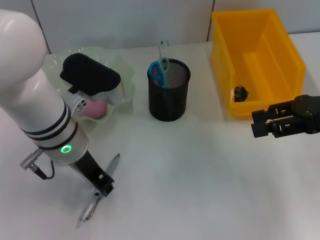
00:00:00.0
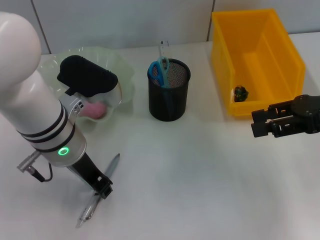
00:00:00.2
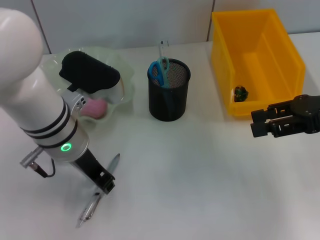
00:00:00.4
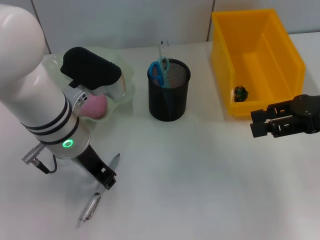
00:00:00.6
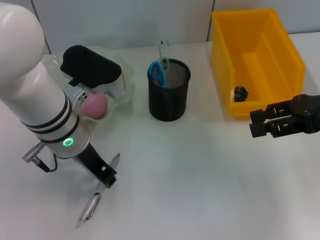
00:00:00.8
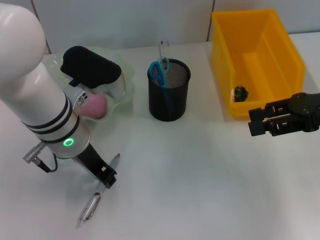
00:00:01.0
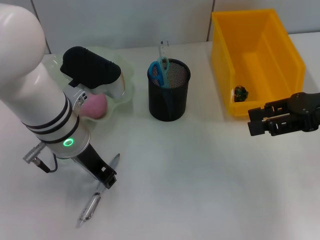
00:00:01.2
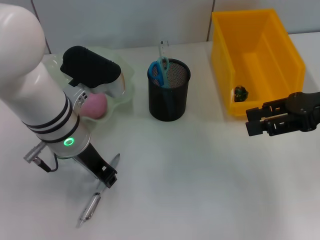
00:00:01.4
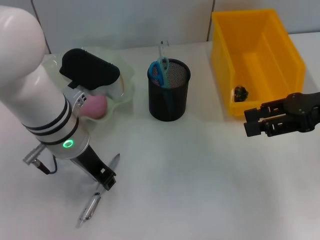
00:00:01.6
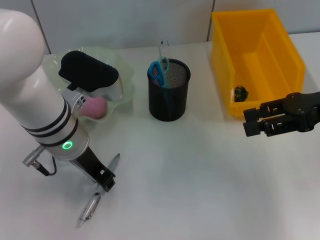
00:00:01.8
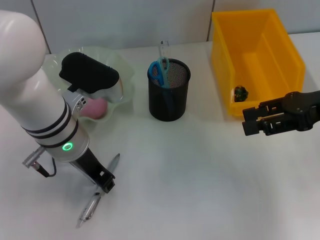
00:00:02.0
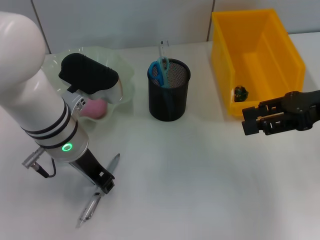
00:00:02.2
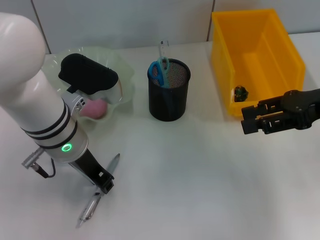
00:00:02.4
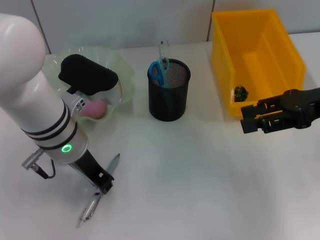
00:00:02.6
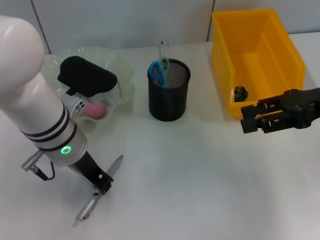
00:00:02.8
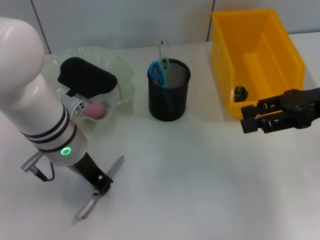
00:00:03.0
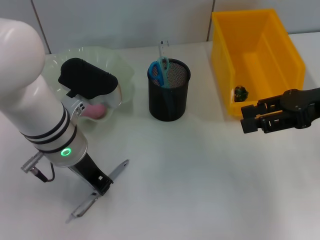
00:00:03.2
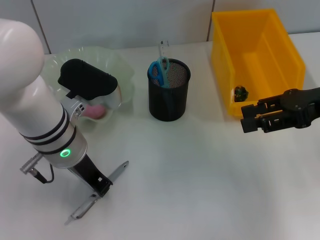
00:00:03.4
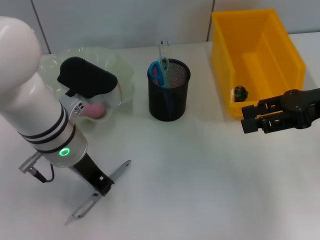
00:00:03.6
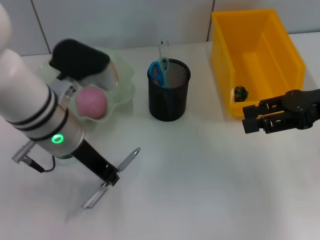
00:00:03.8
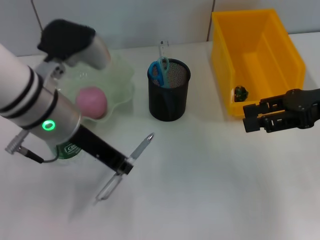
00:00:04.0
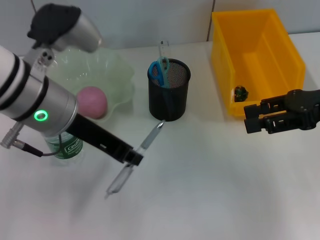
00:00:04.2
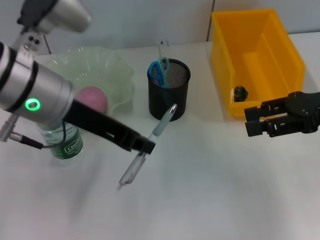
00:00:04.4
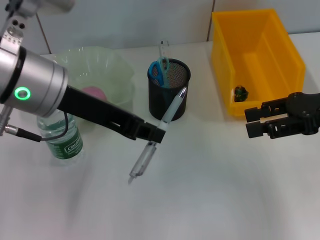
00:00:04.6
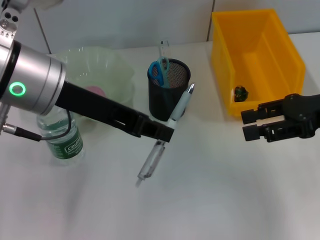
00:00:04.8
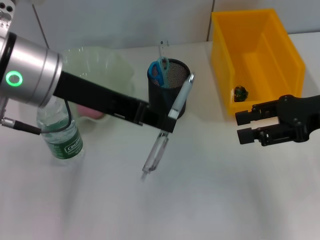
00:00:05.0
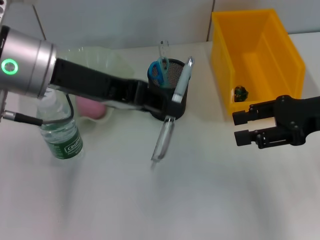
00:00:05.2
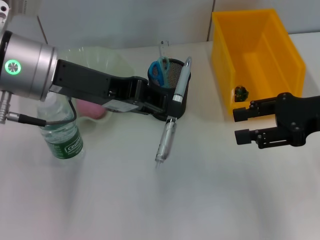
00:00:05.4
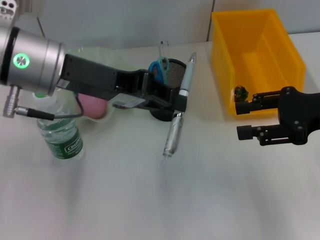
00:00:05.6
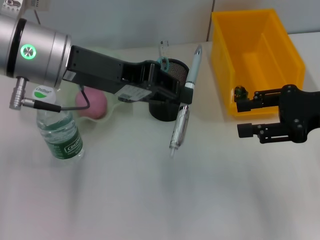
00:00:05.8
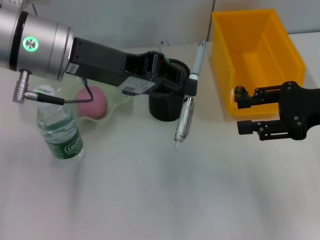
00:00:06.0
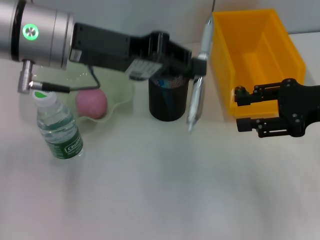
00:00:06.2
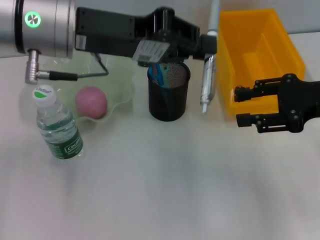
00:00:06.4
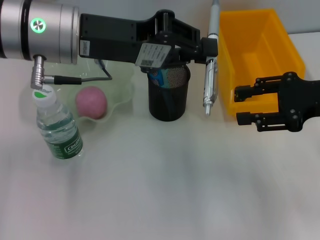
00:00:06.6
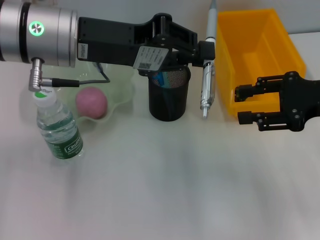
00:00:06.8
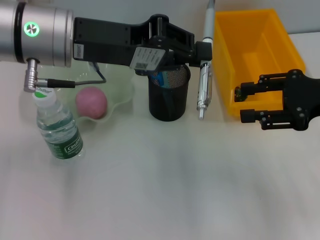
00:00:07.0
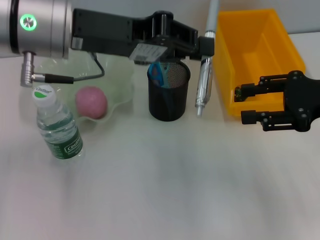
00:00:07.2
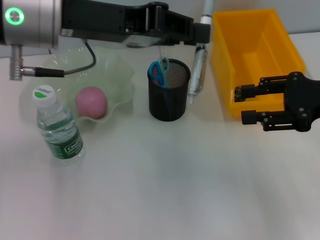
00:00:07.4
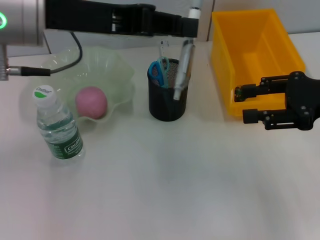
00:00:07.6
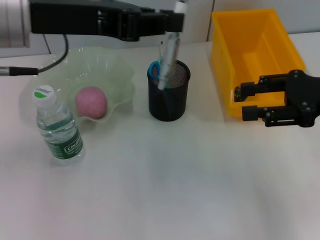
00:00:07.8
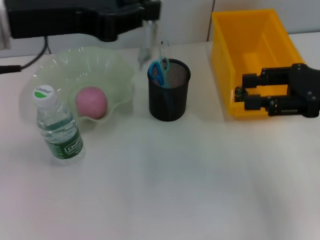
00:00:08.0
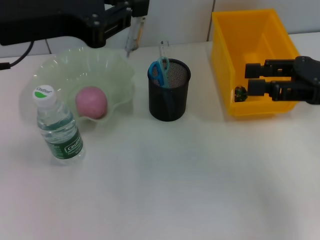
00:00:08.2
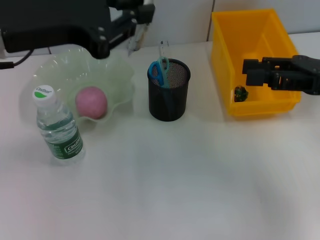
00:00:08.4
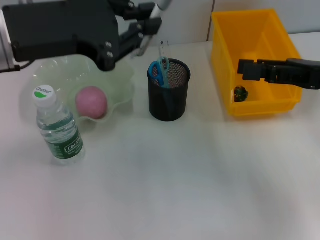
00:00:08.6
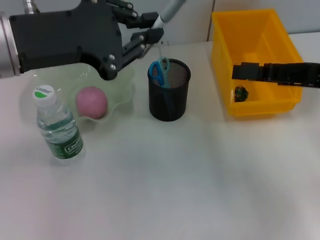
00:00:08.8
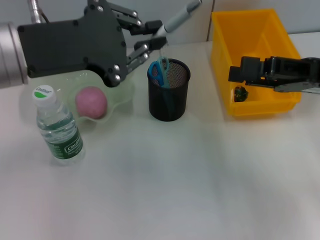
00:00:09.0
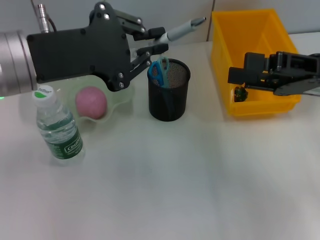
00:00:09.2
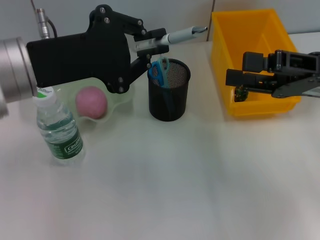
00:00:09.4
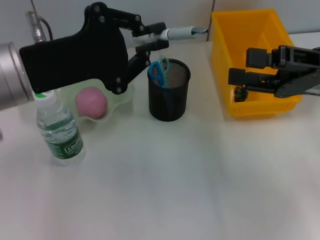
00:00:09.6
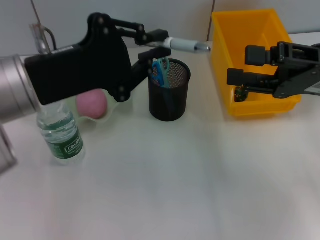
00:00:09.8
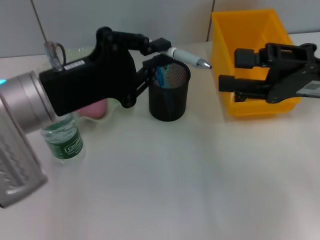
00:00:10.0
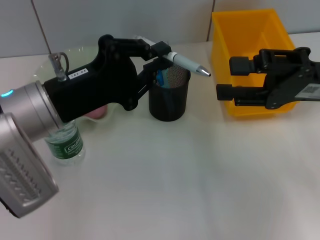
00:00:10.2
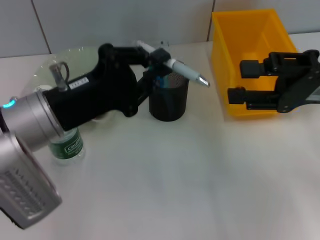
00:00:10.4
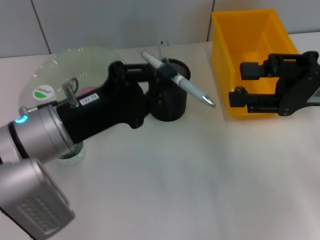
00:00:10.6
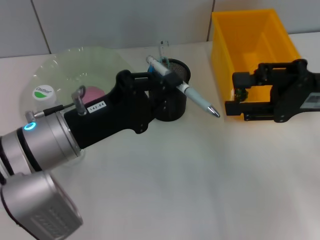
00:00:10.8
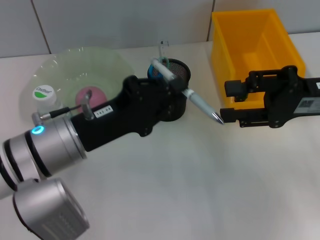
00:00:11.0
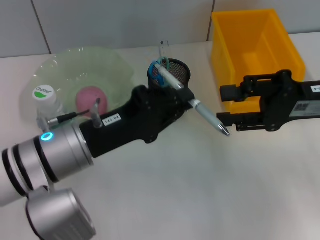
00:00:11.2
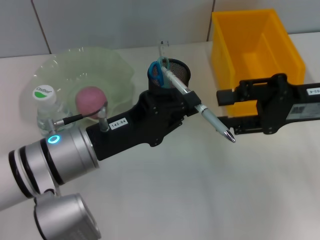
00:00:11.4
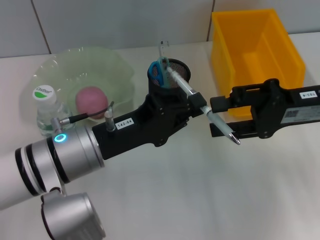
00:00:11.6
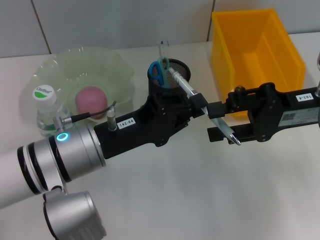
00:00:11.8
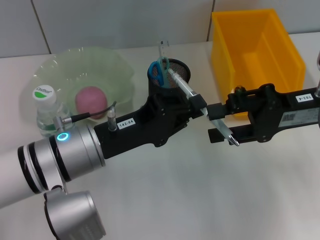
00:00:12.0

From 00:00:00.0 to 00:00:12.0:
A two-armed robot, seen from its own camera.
Step, from 00:00:00.0 to 00:00:04.0: Grab the gray spring-action pen with the left hand.
From 00:00:00.0 to 00:00:01.6: The two grippers keep their place.
From 00:00:01.6 to 00:00:03.0: Both grippers stay about where they are.
From 00:00:03.0 to 00:00:04.4: The left gripper shifts approximately 10 cm upward.
From 00:00:07.6 to 00:00:09.0: The left gripper moves some 5 cm.
From 00:00:09.0 to 00:00:10.4: The left gripper is displaced downward by roughly 10 cm.
From 00:00:10.4 to 00:00:12.0: The left gripper moves some 5 cm.

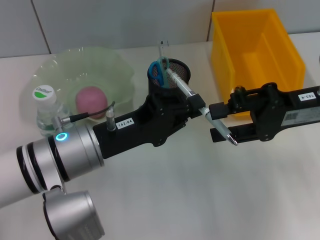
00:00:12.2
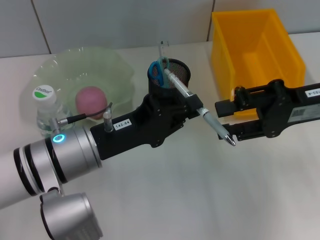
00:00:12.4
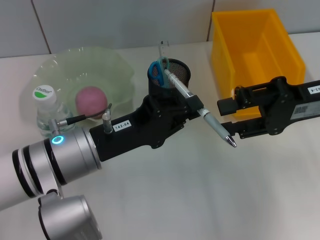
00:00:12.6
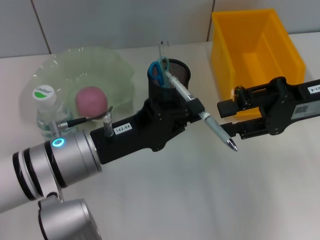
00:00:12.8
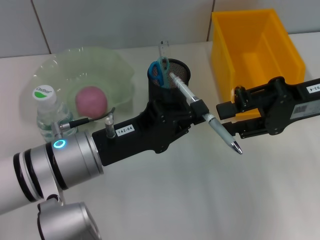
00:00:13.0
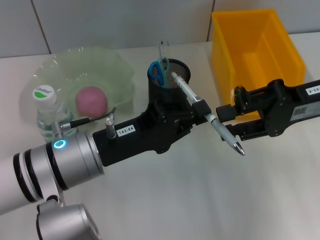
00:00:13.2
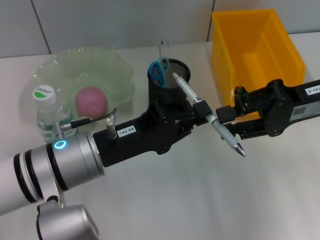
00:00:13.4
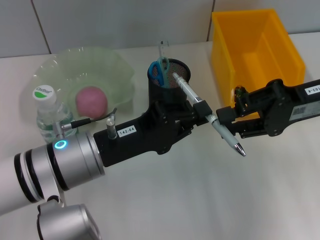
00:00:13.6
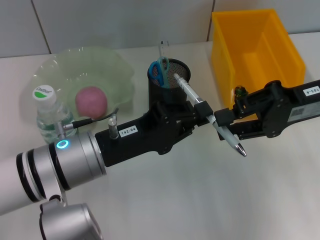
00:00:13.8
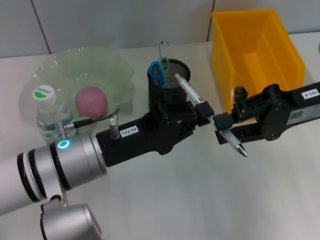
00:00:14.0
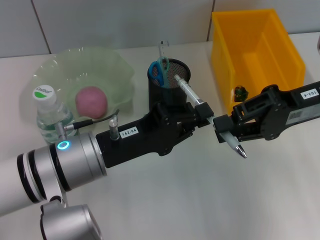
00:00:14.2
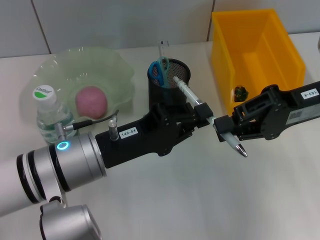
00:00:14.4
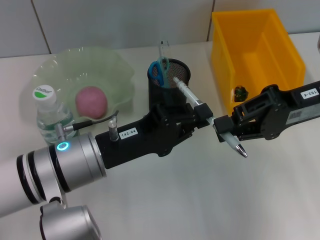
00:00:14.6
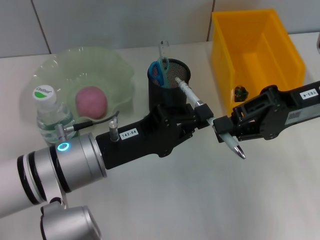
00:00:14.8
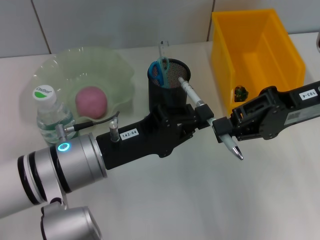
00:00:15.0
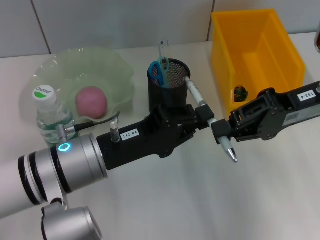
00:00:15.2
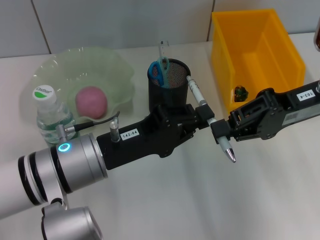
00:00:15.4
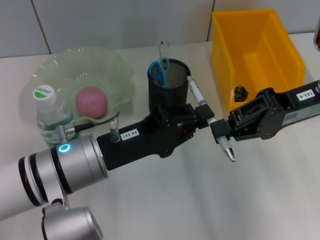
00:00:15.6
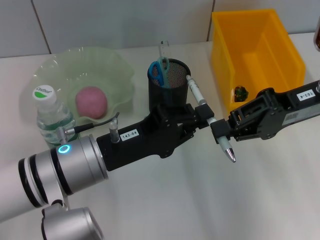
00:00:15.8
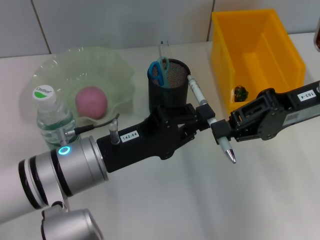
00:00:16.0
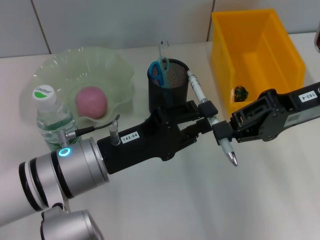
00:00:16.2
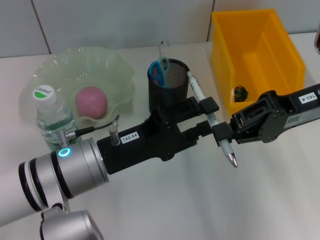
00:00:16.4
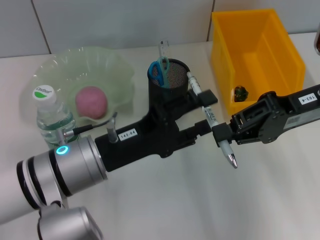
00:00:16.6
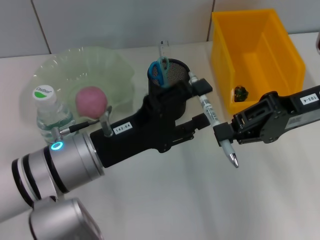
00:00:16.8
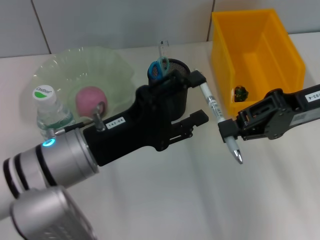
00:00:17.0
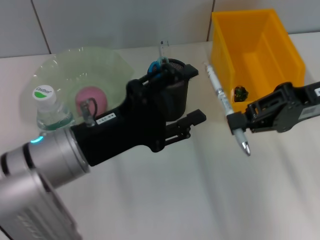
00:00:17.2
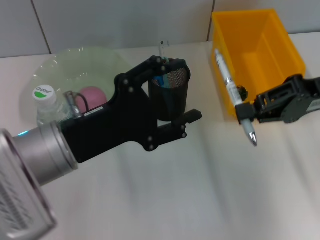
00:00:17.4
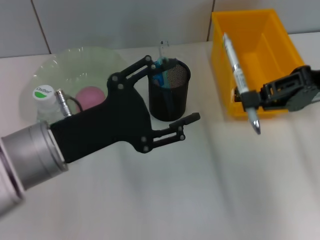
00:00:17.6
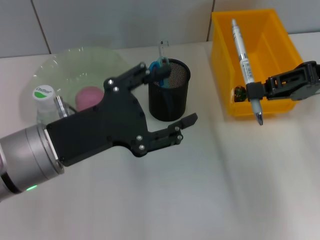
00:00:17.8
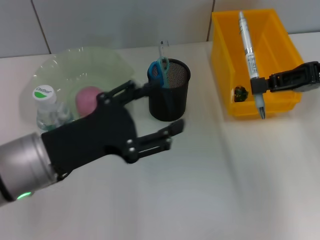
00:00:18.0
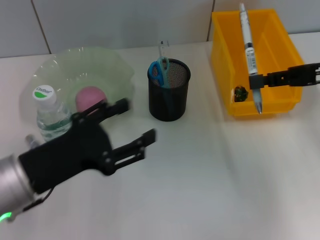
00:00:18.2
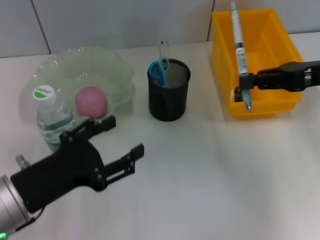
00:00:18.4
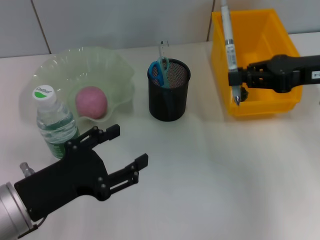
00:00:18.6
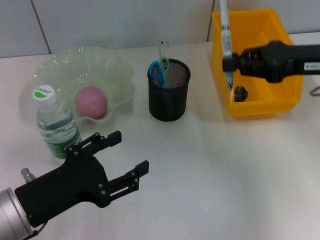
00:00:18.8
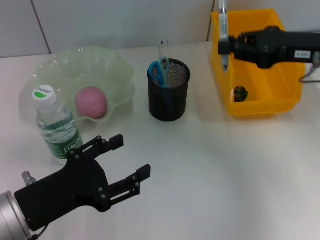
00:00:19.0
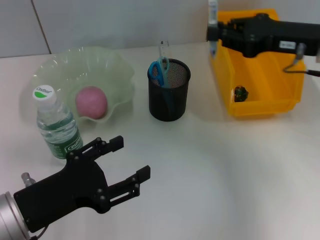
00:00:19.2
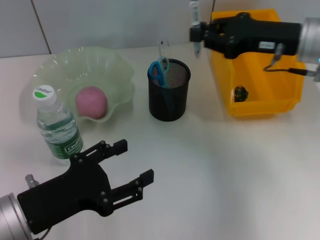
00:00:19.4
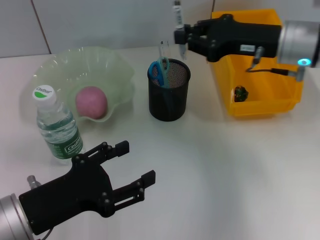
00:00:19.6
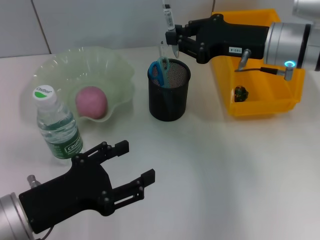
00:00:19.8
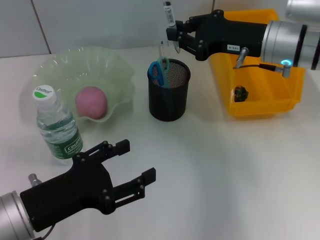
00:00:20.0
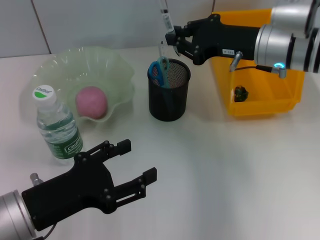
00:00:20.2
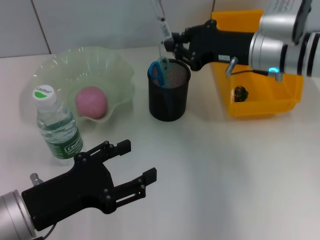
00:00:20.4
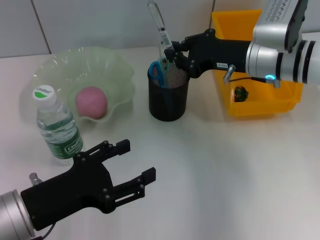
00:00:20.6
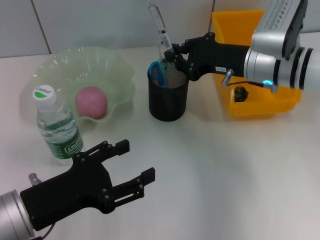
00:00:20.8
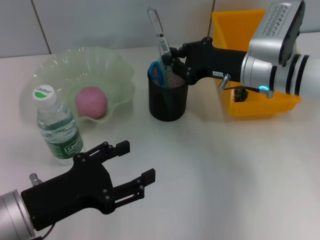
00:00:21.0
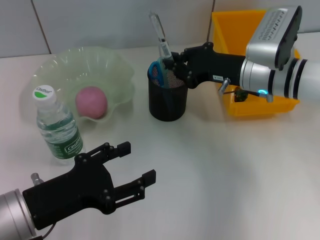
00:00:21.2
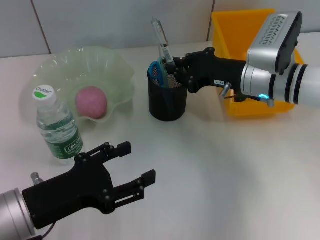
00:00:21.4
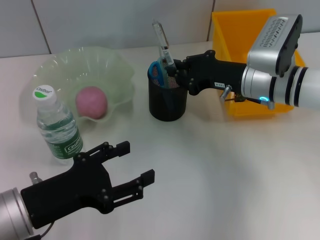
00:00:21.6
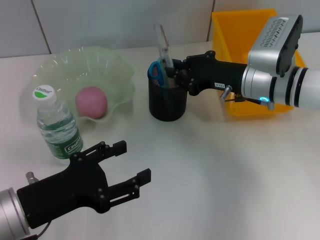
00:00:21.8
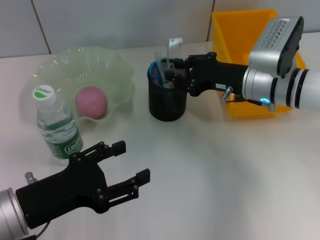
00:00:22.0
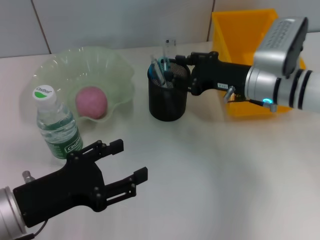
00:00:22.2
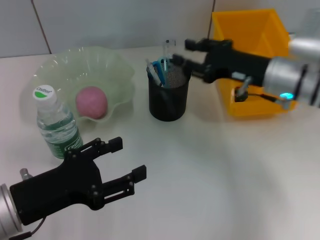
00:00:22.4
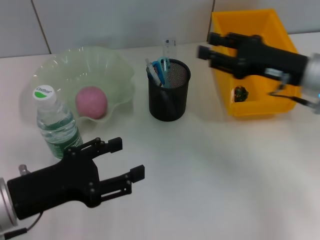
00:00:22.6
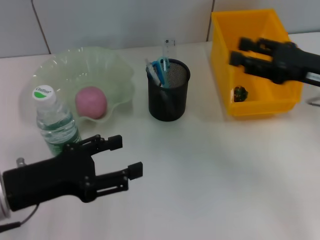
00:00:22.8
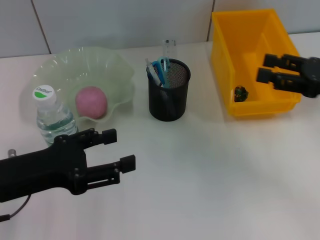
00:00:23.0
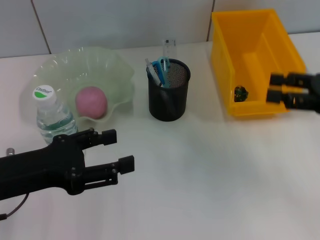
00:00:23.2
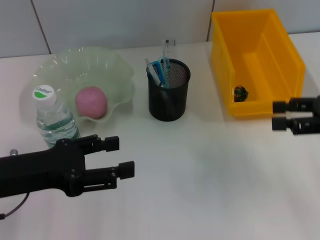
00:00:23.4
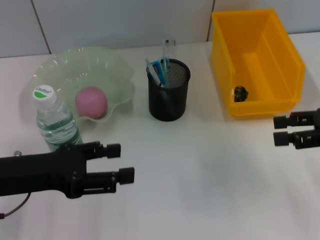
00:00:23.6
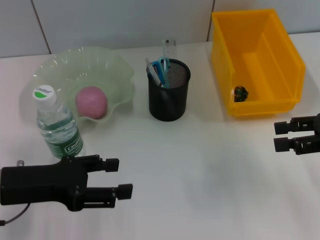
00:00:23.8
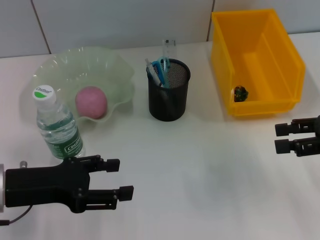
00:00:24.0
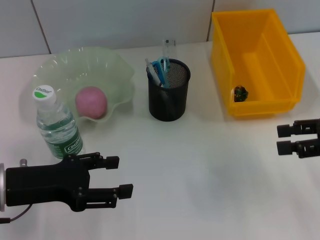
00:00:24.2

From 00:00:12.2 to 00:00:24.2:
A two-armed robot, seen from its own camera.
Step, from 00:00:12.2 to 00:00:17.2: Pass the gray spring-action pen from the left hand to the right hand.
Step, from 00:00:17.4 to 00:00:22.6: Place the gray spring-action pen into the pen holder with the right hand.
From 00:00:12.2 to 00:00:15.2: The grippers make only small movements.
From 00:00:15.2 to 00:00:16.6: The left gripper opens its fingers.
From 00:00:16.6 to 00:00:18.2: The left gripper heads to the left, covering approximately 5 cm, while the right gripper moves to the right, roughly 5 cm.
From 00:00:18.2 to 00:00:19.8: The right gripper moves to the left and forward, about 10 cm.
From 00:00:19.8 to 00:00:21.2: The right gripper goes some 5 cm downward.
From 00:00:21.2 to 00:00:22.6: The right gripper goes approximately 5 cm to the right, and opens its fingers.
From 00:00:22.6 to 00:00:24.2: The right gripper goes approximately 10 cm to the right and backward.
